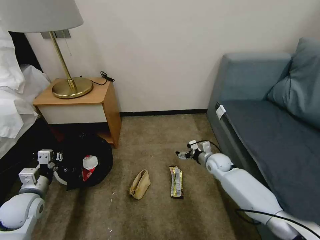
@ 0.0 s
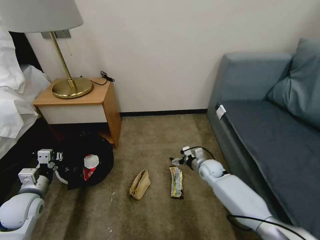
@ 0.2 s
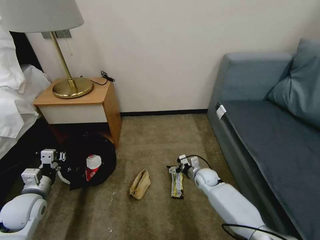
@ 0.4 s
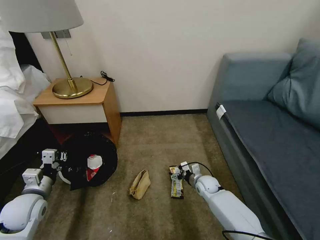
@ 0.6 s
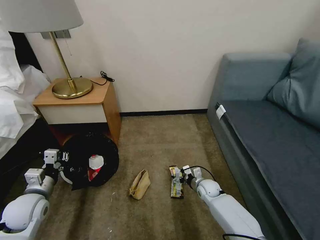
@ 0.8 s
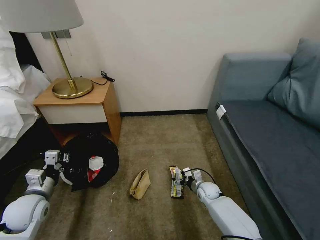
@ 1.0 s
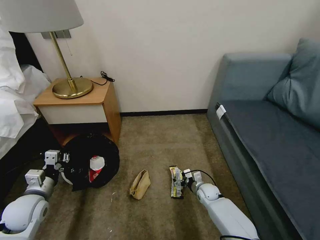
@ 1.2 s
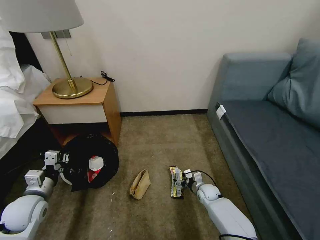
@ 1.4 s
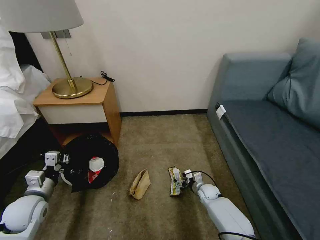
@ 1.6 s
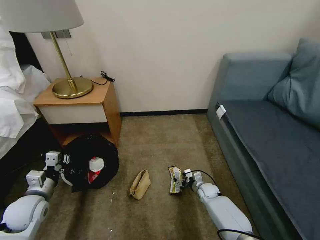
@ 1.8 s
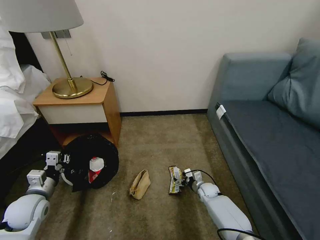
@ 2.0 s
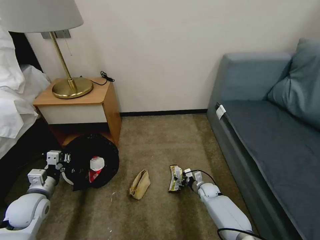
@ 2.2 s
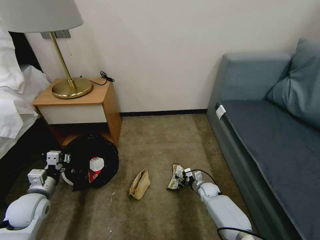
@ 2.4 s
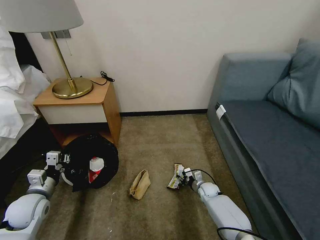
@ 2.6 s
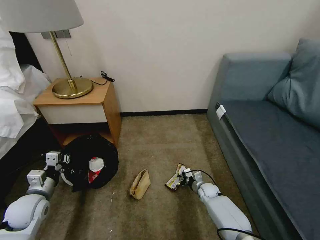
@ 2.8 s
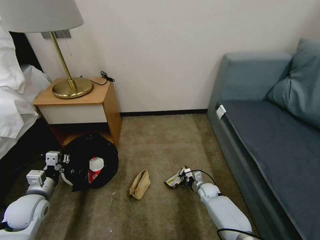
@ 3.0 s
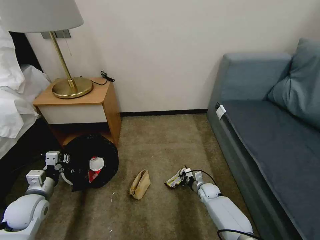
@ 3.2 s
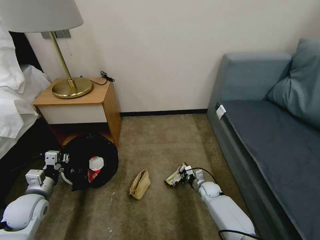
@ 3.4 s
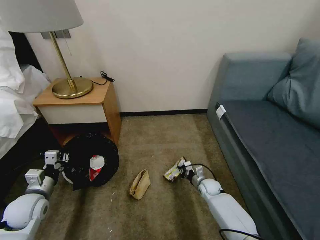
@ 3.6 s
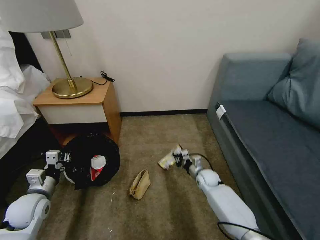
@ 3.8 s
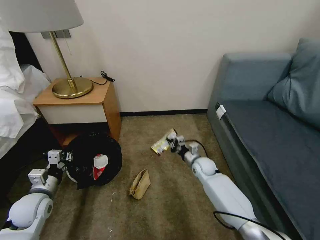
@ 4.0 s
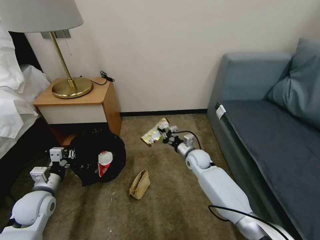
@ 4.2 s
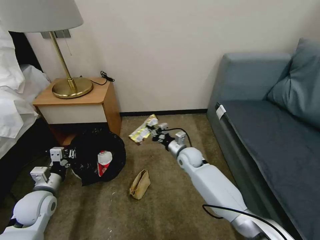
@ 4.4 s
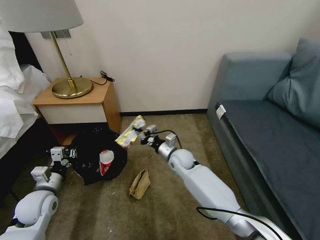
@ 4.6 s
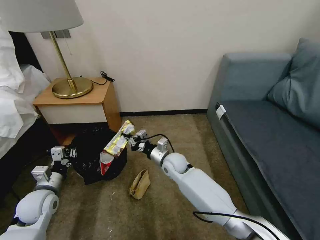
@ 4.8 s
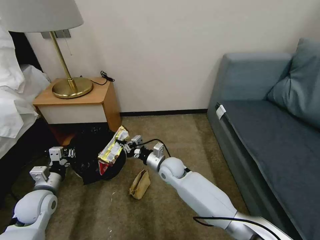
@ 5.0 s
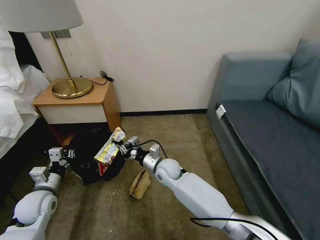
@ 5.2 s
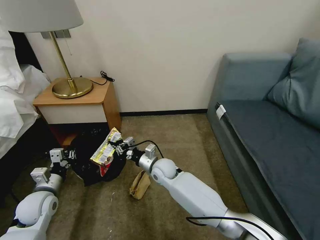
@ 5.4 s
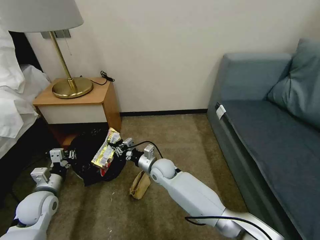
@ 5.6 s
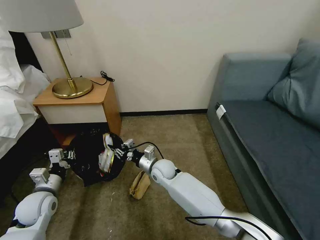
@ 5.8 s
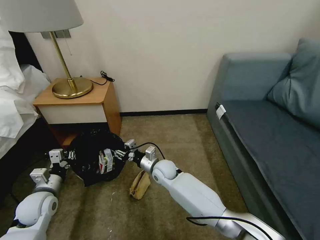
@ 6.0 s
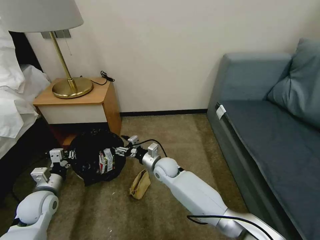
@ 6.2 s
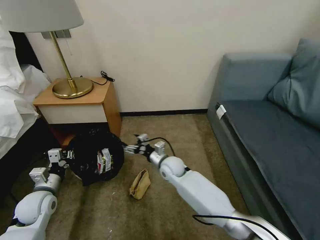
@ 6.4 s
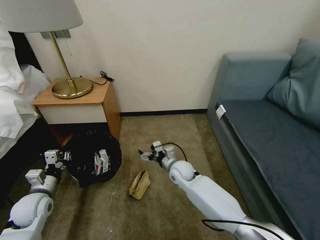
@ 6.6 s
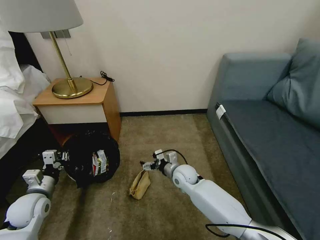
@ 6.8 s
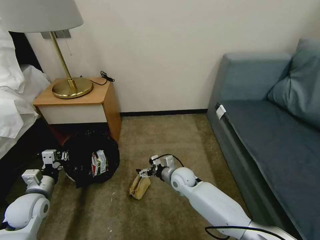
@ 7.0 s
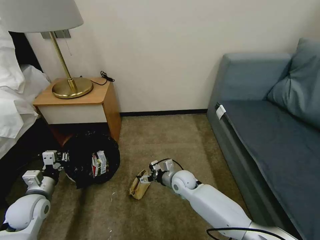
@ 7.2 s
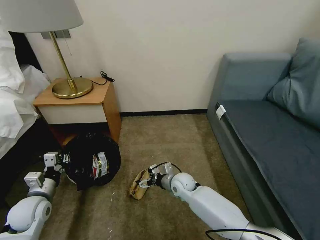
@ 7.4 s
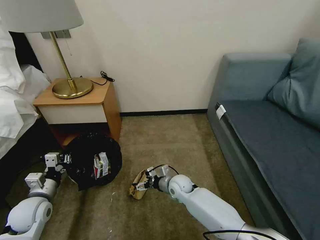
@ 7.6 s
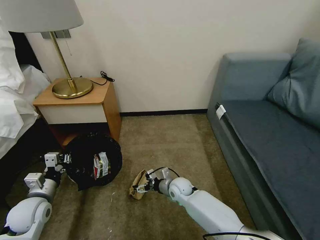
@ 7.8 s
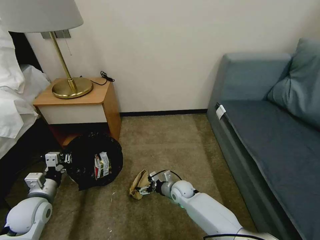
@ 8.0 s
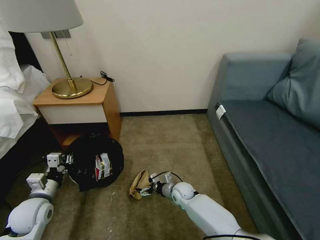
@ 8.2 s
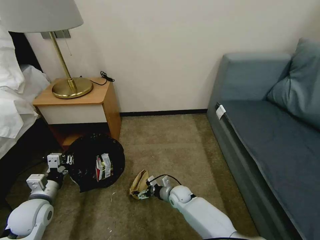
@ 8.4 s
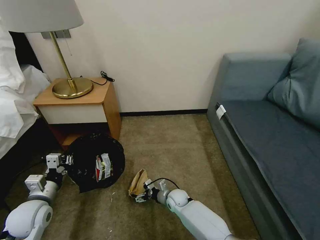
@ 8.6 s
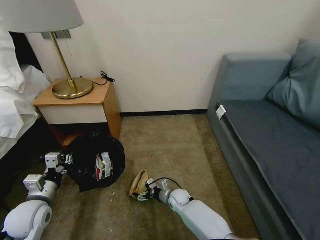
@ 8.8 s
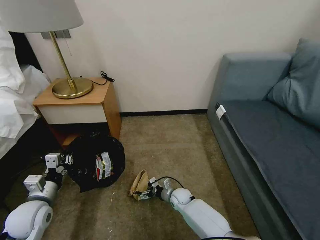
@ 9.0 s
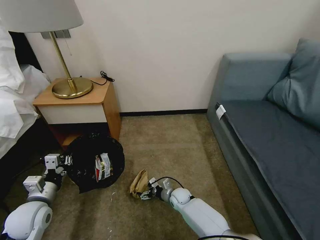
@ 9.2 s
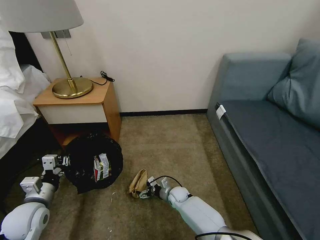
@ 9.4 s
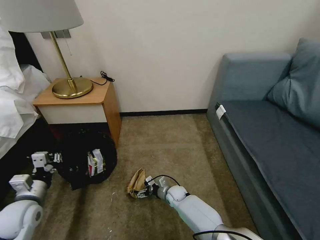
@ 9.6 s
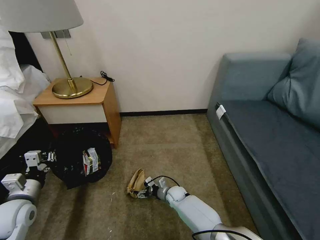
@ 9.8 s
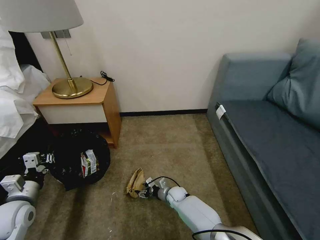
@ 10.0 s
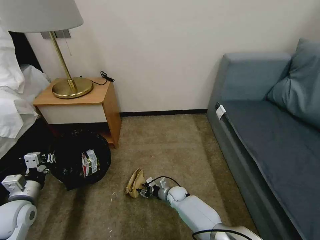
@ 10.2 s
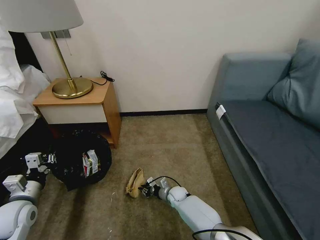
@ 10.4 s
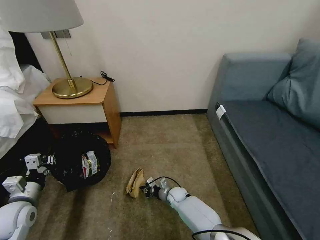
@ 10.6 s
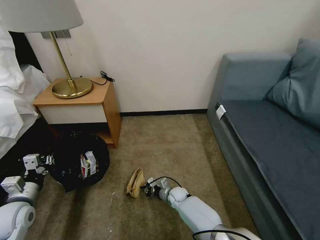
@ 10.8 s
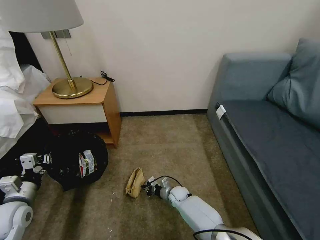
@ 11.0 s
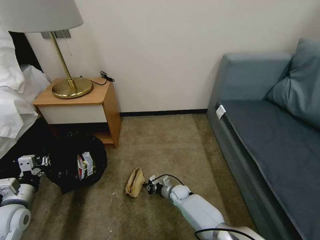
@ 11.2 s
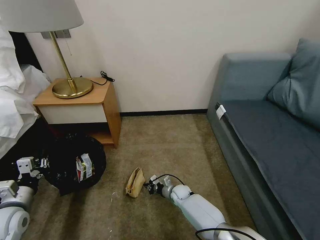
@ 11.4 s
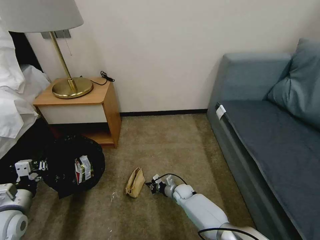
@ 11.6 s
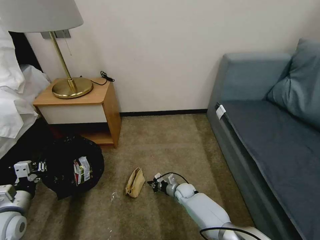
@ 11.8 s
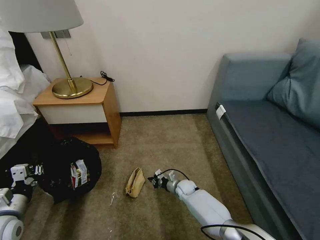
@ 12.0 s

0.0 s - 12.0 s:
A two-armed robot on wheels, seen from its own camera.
Task of the whole recording: Pick up the trash bin, then pick up the garbage on the floor and place it into the trash bin.
0.0 s - 1.6 s: The right gripper goes about 15 cm downward and backward.
1.6 s - 3.0 s: The right gripper closes up.
3.0 s - 4.4 s: The right gripper goes approximately 25 cm upward and to the left.
4.4 s - 6.0 s: The right gripper heads to the left, covering some 10 cm, and opens.
6.0 s - 7.6 s: The right gripper moves to the right and downward, some 10 cm, and opens.
7.6 s - 9.0 s: The right gripper travels downward by some 10 cm.
9.0 s - 10.4 s: The right gripper closes its fingers.
10.4 s - 12.0 s: The grippers make only small movements.

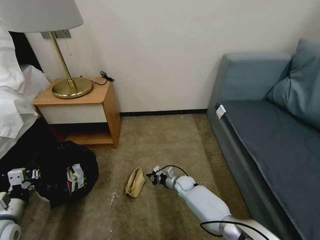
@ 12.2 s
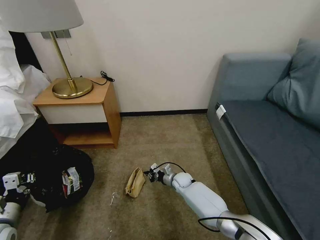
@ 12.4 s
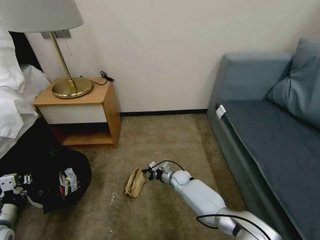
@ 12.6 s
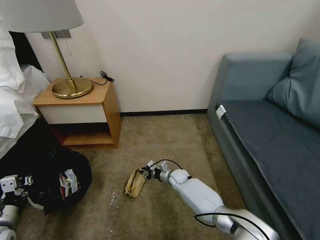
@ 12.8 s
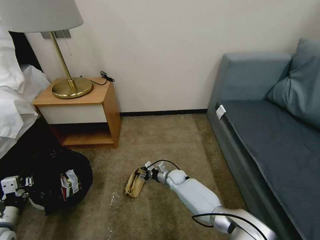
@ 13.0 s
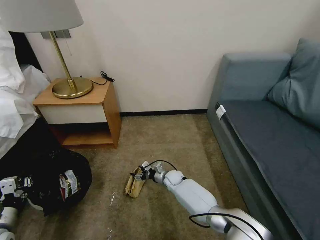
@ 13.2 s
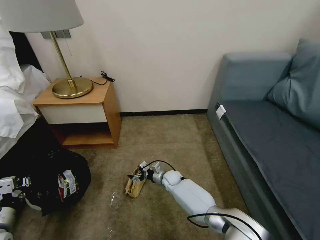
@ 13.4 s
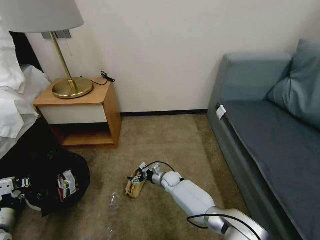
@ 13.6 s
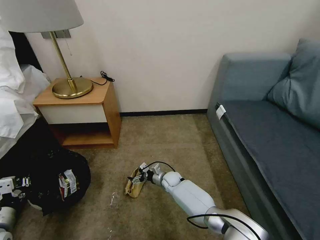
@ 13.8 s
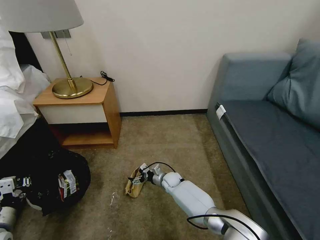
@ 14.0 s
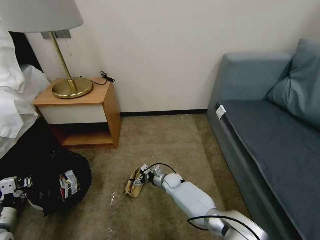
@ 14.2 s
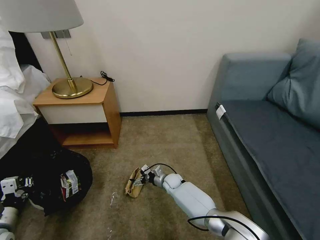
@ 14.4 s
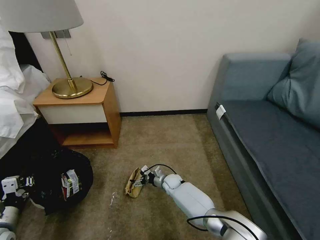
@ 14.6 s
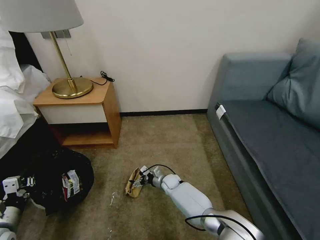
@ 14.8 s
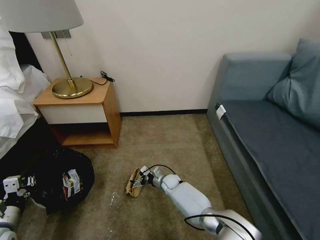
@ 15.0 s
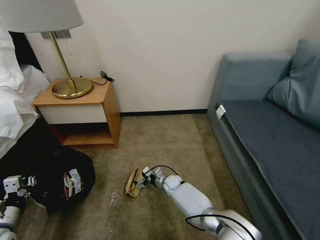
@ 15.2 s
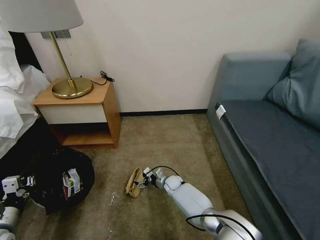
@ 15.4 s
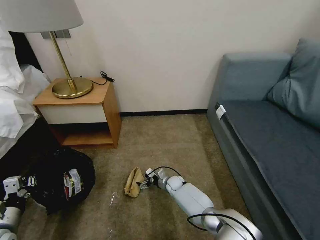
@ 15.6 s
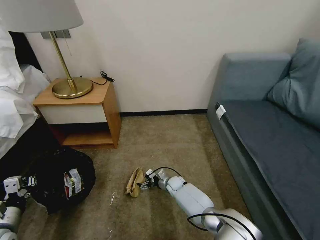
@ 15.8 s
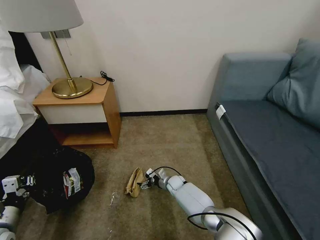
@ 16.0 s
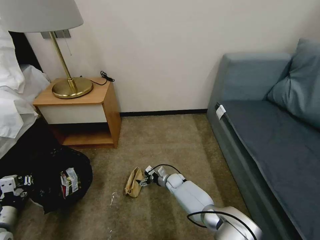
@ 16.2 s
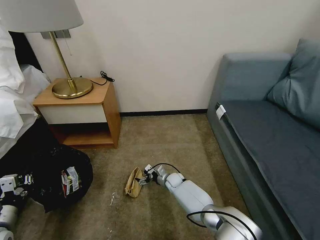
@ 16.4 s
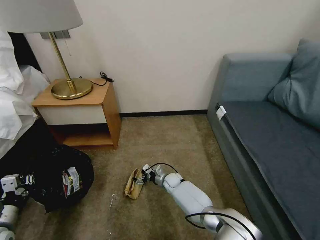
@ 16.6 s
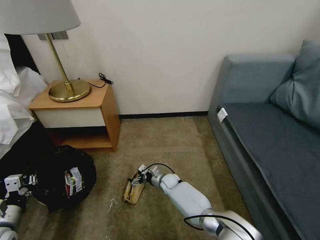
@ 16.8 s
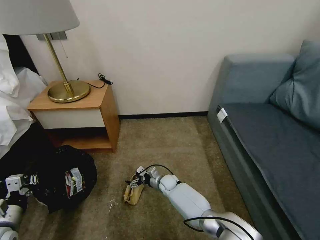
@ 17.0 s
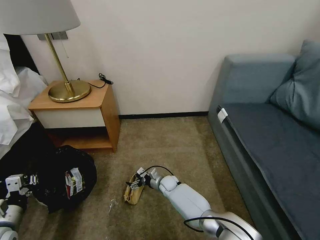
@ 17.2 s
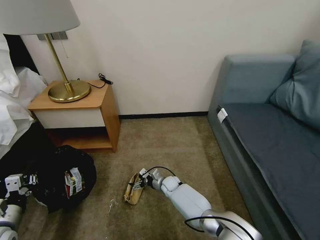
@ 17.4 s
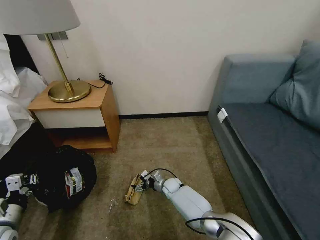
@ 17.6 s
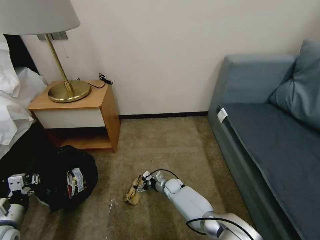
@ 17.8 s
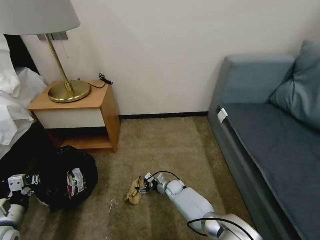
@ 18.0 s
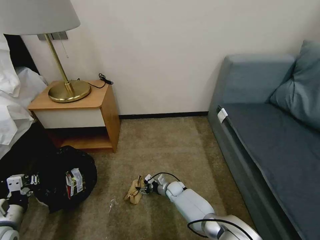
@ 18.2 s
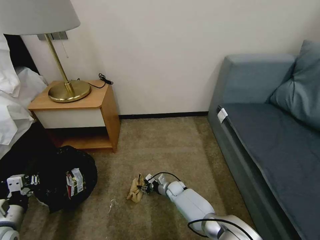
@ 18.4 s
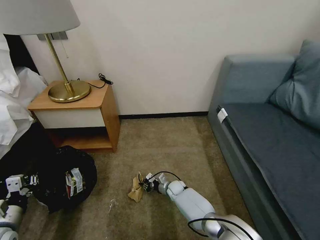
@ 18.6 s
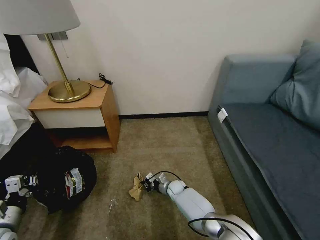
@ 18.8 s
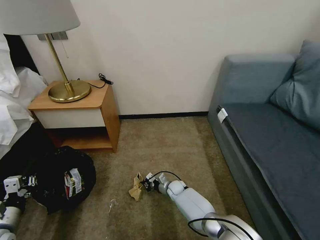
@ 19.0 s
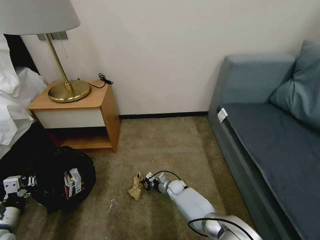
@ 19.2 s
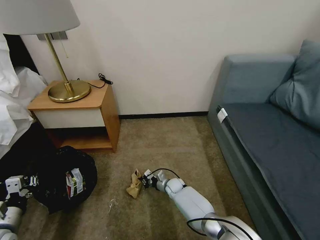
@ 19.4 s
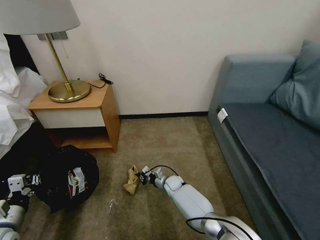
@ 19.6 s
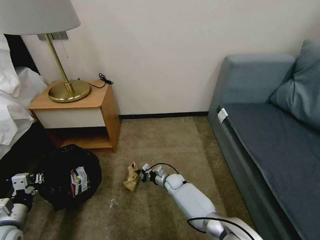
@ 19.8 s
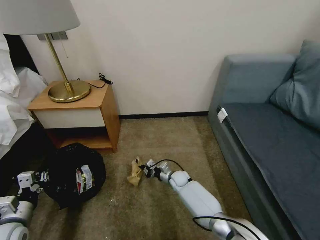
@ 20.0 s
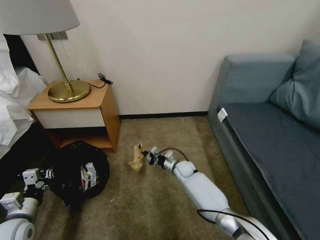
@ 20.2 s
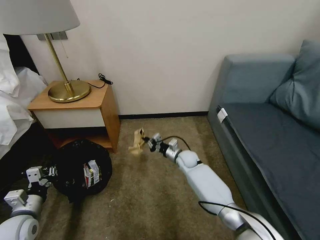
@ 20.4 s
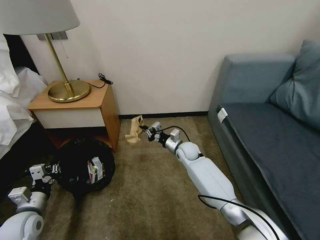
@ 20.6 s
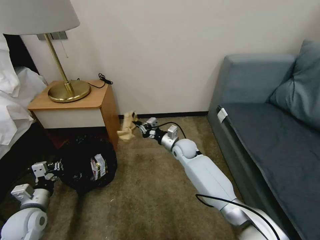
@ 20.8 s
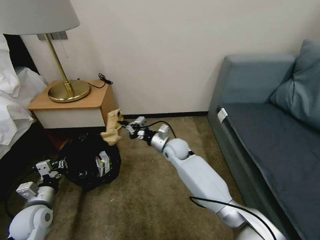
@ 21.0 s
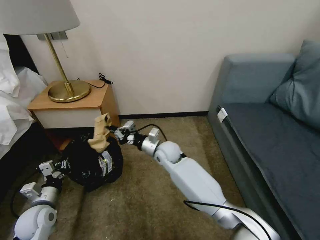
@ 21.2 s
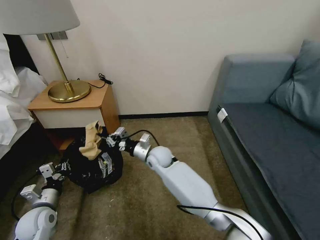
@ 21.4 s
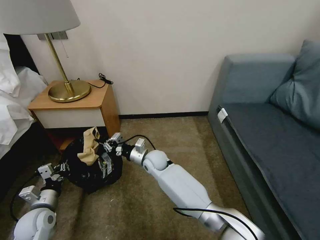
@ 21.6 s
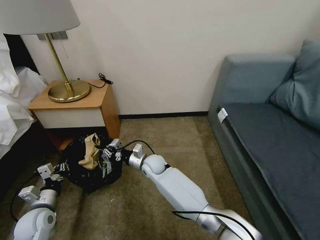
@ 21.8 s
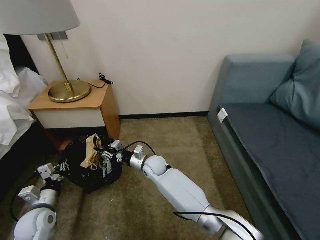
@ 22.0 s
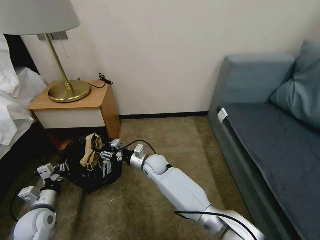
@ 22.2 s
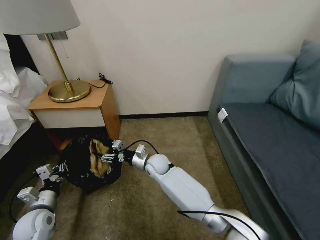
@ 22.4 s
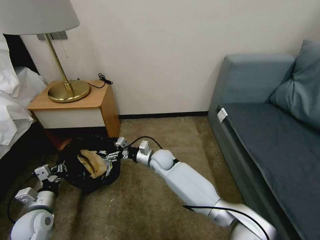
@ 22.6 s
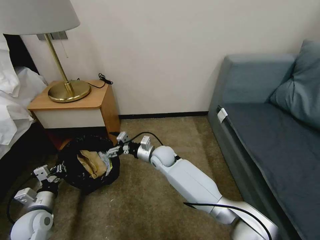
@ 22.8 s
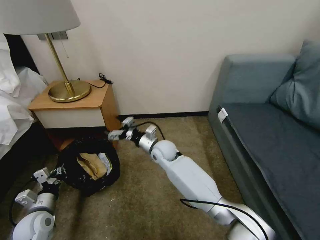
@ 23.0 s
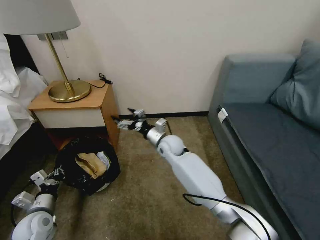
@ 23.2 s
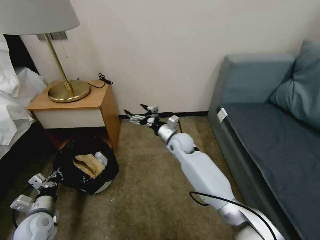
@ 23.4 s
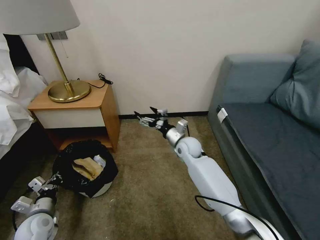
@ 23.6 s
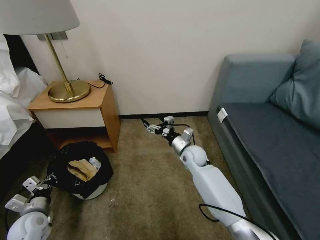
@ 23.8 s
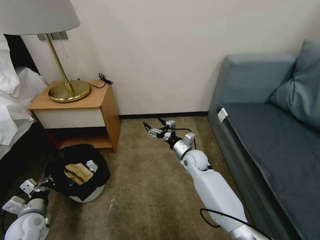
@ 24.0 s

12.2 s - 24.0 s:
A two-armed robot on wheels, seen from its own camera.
Task of the whole recording: Pick up the trash bin, then pick up the garbage on the floor and place it into the trash bin.
12.2 s - 13.6 s: The right gripper goes about 5 cm to the left, and opens its fingers.
13.6 s - 16.6 s: The grippers move only a little.
16.6 s - 18.2 s: There are only small adjustments of the grippers.
18.2 s - 19.6 s: The right gripper closes its fingers.
19.6 s - 21.0 s: The right gripper is displaced upward by roughly 25 cm; the left gripper goes roughly 10 cm forward and to the right.
21.0 s - 22.6 s: The right gripper moves to the left, some 5 cm, and opens its fingers.
22.6 s - 24.0 s: The right gripper goes approximately 15 cm to the right.
